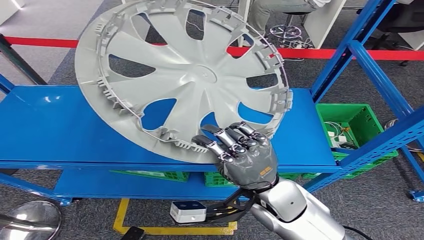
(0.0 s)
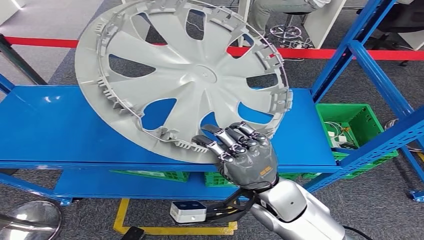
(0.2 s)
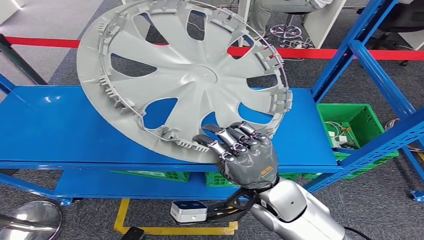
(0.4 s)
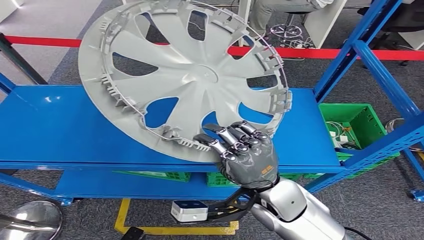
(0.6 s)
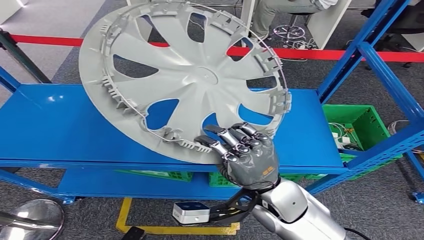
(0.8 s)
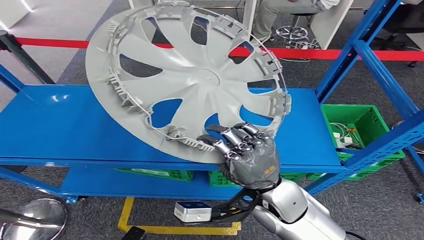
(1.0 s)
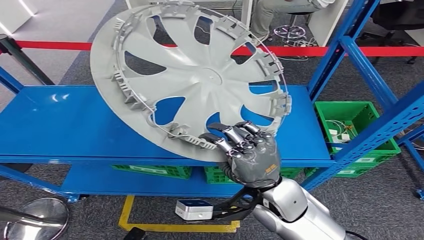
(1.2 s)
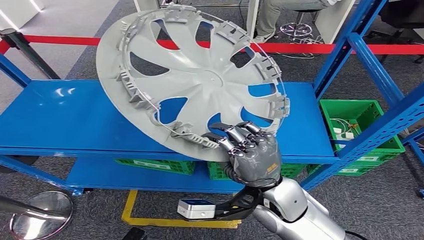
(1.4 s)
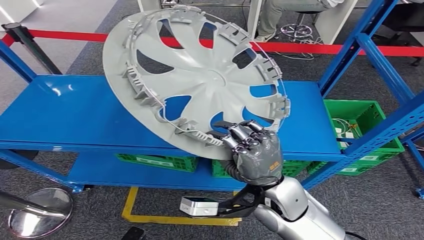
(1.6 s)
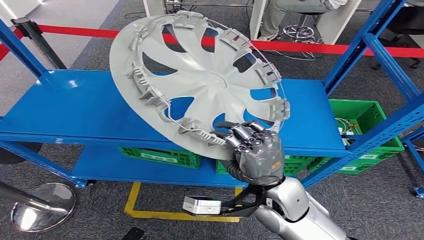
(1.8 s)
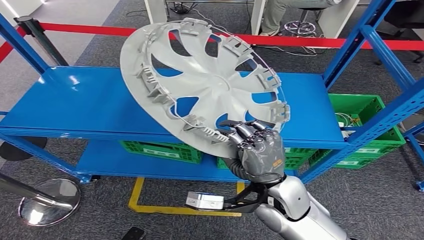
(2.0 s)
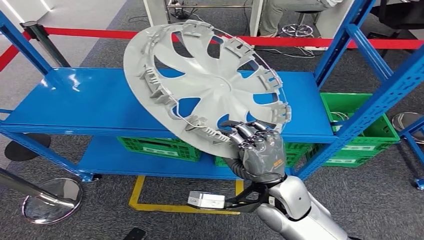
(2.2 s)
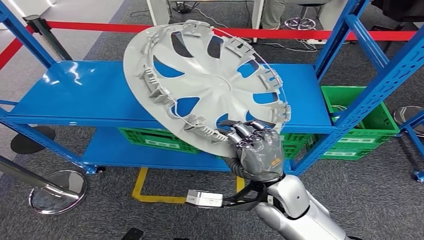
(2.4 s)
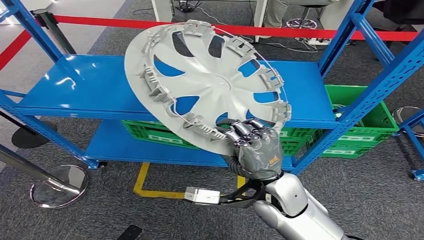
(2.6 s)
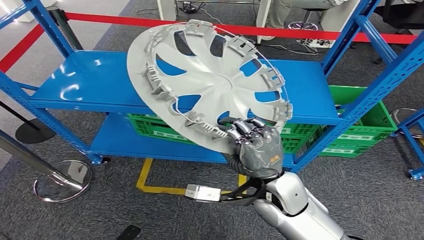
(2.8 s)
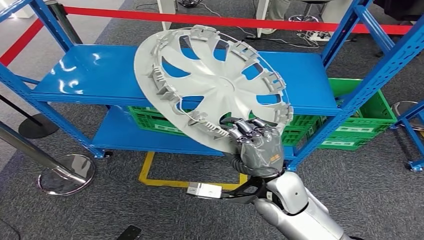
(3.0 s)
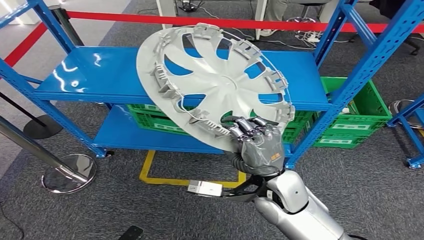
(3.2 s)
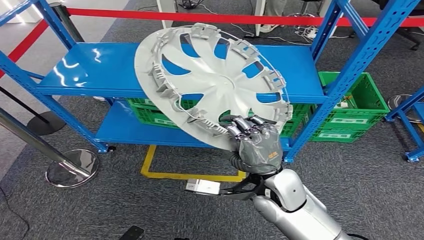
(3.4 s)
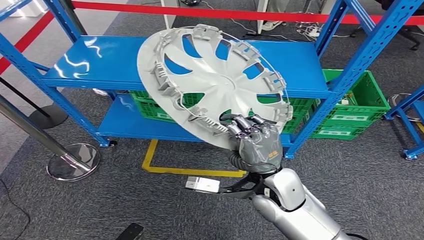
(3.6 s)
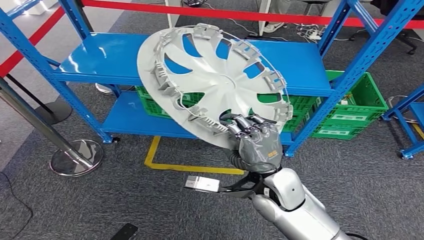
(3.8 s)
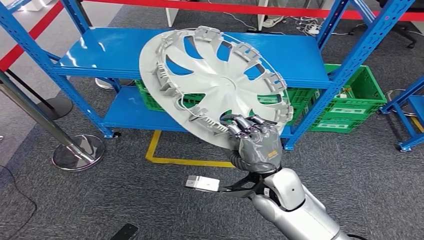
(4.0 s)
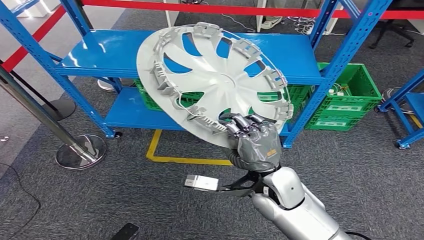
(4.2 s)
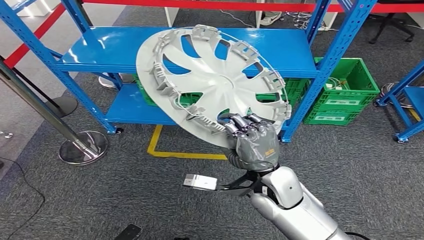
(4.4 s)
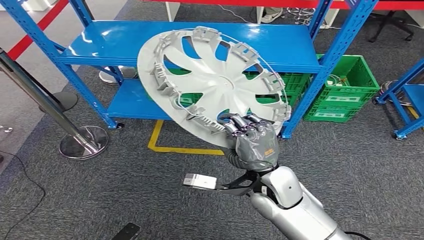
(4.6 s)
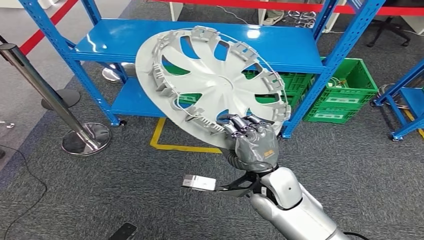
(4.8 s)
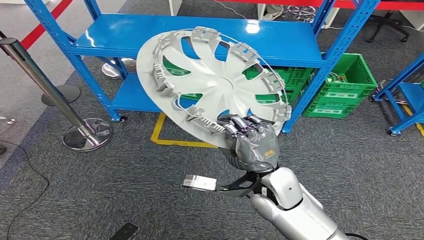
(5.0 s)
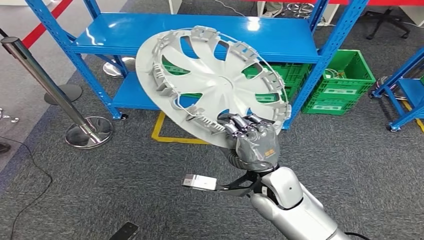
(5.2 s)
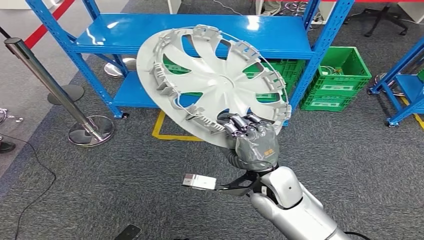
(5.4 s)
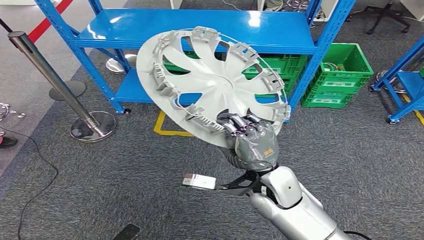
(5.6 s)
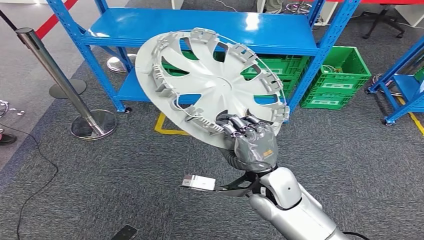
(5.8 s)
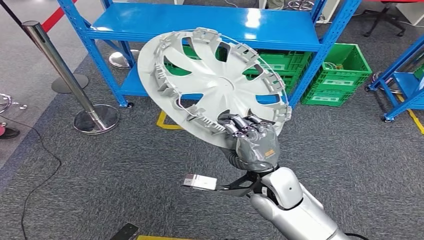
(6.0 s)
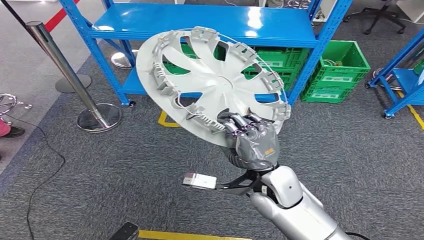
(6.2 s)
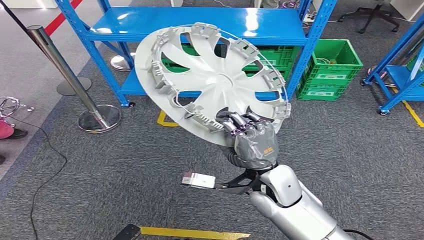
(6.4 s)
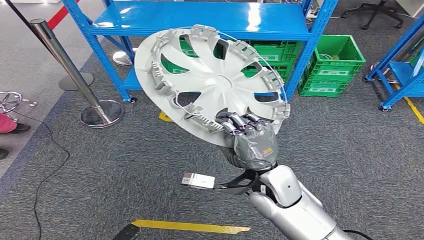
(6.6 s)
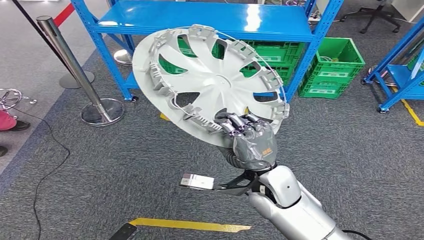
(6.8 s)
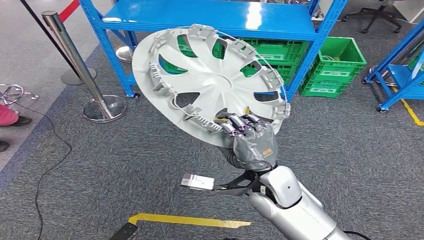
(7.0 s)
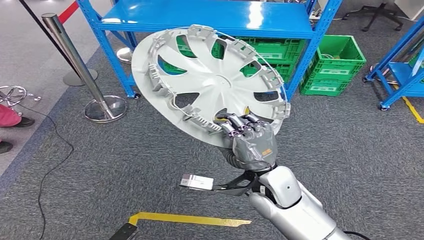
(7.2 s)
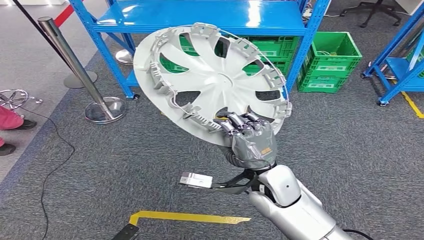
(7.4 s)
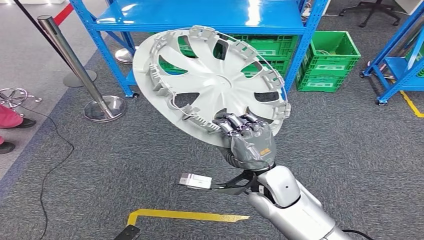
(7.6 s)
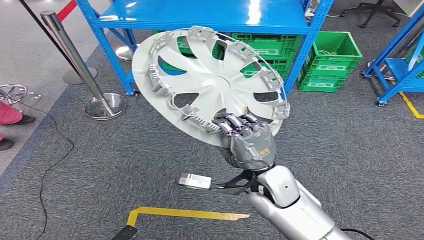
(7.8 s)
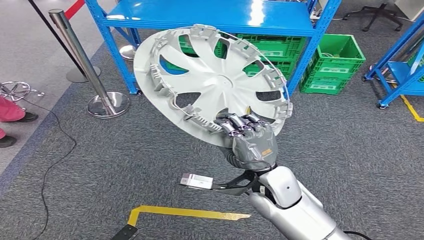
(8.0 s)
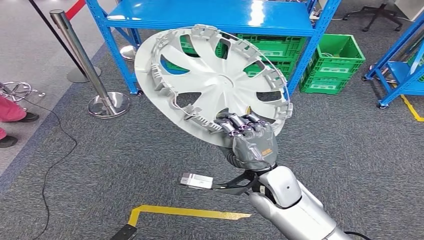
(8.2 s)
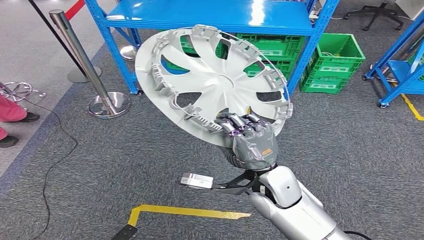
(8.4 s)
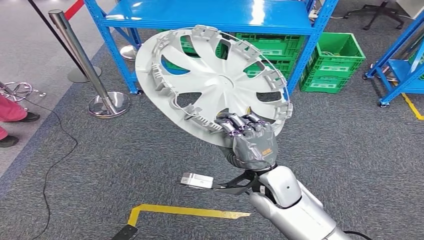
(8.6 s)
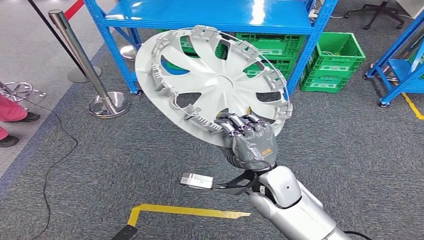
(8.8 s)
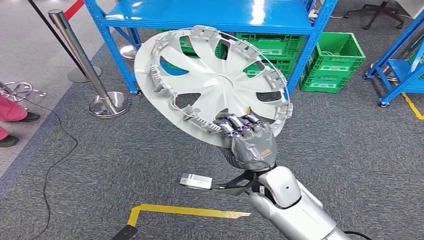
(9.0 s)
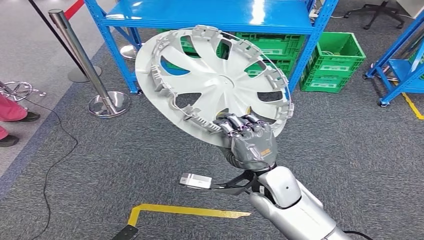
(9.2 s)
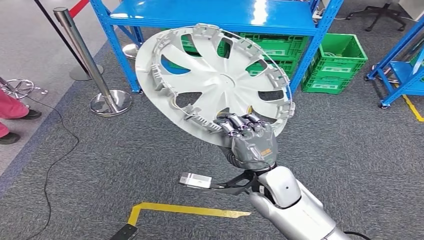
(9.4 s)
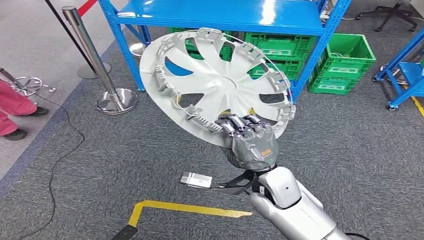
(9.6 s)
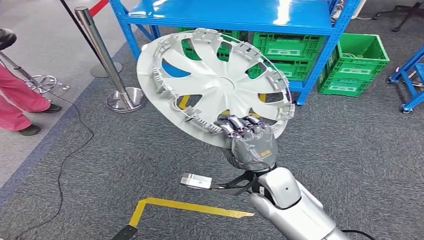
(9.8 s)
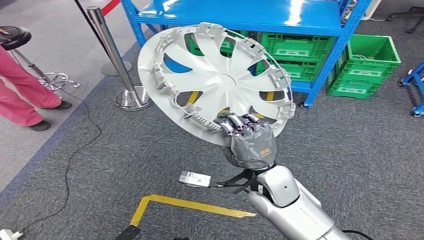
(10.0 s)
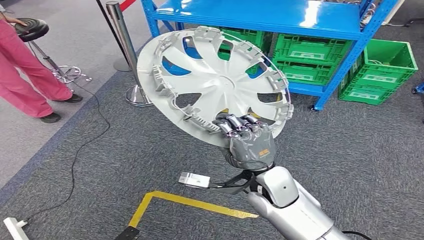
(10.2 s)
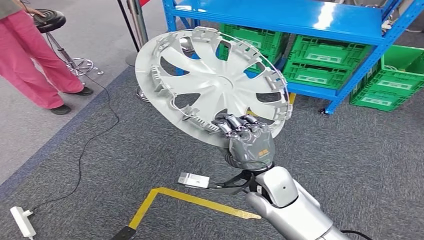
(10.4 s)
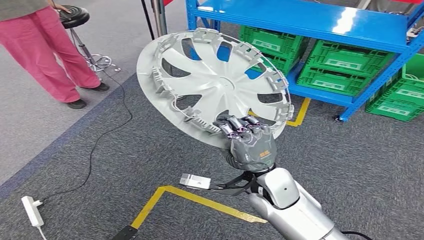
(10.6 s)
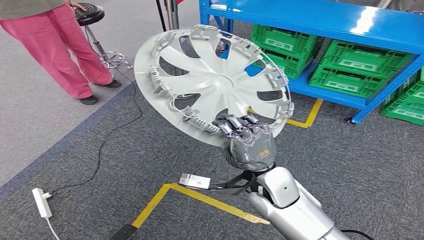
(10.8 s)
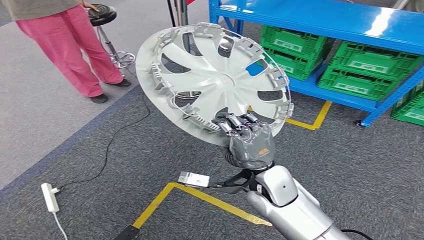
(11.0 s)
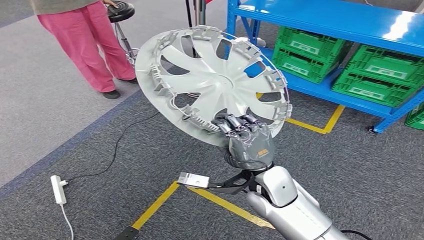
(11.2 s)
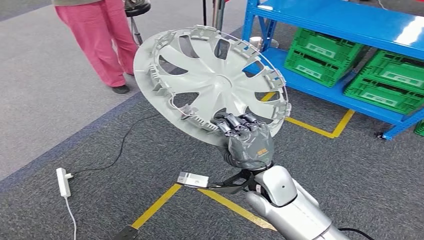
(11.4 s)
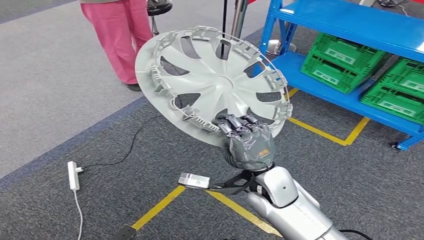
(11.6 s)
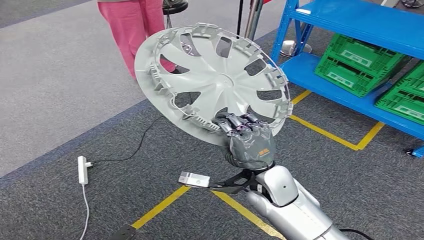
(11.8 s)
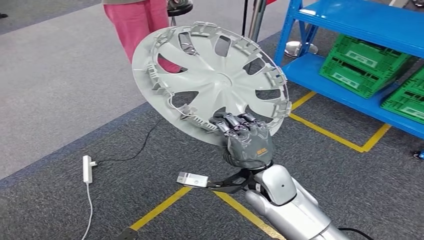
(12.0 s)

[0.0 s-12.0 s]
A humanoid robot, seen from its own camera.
7.6 to 9.0 s: The two hands keep their place.

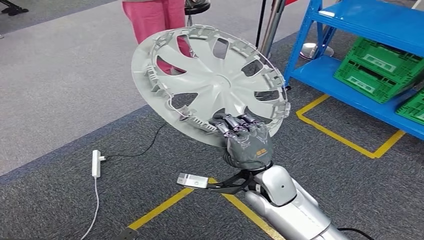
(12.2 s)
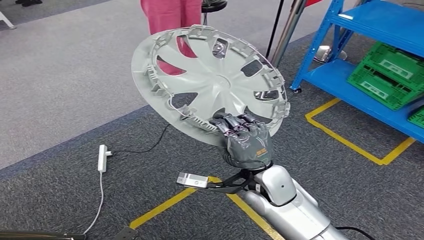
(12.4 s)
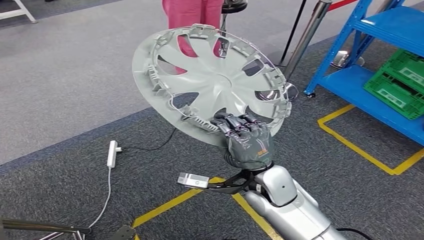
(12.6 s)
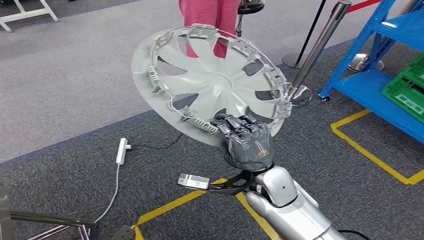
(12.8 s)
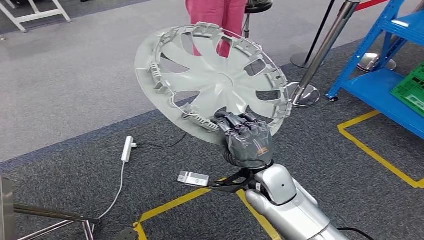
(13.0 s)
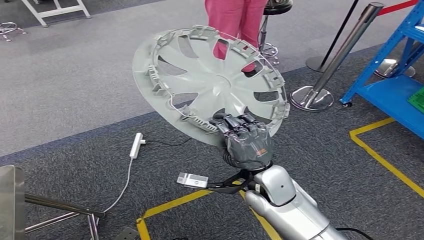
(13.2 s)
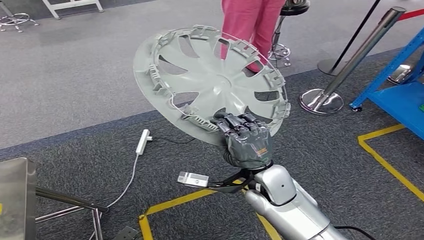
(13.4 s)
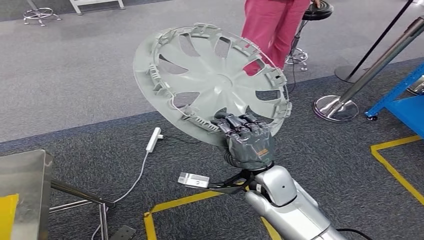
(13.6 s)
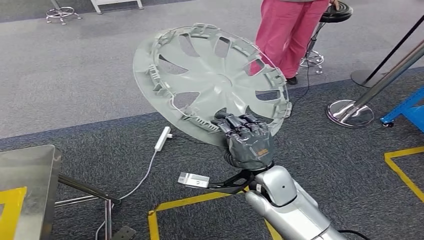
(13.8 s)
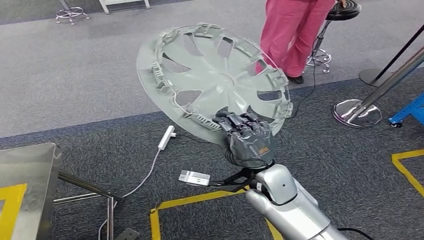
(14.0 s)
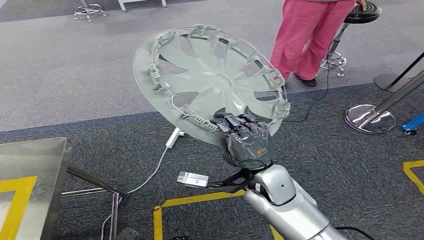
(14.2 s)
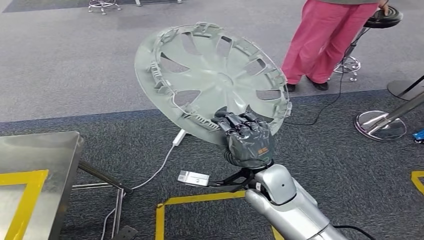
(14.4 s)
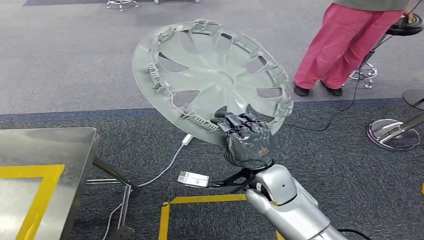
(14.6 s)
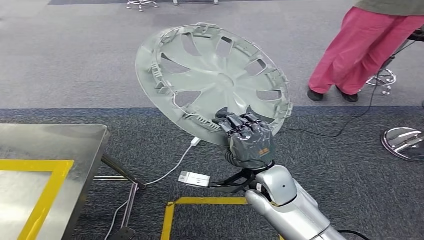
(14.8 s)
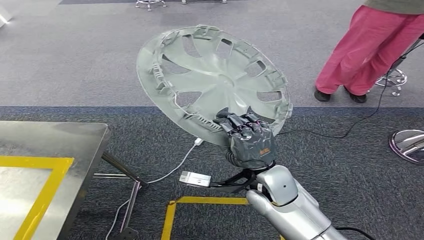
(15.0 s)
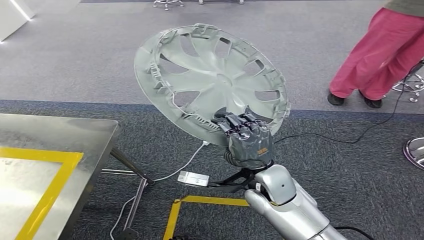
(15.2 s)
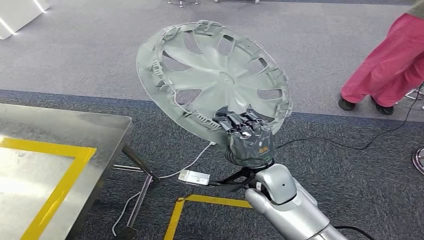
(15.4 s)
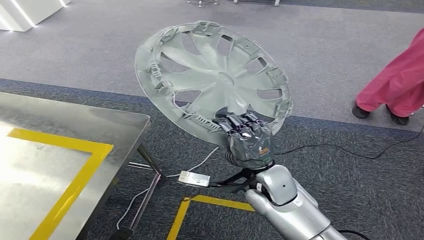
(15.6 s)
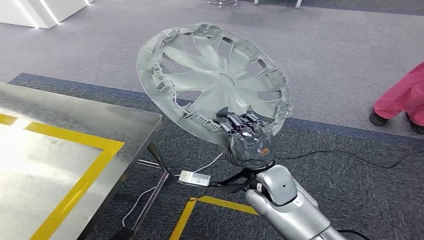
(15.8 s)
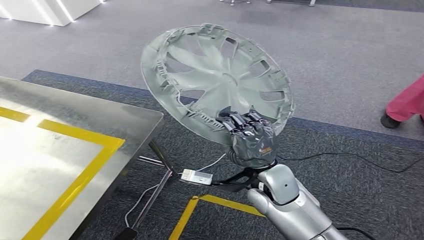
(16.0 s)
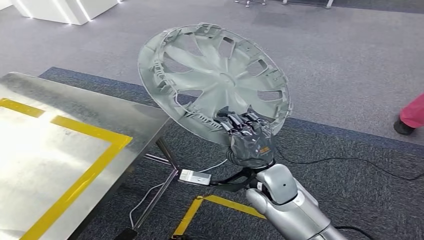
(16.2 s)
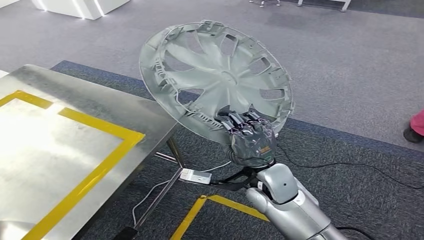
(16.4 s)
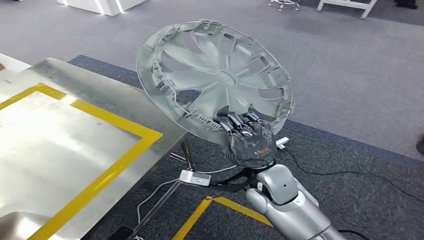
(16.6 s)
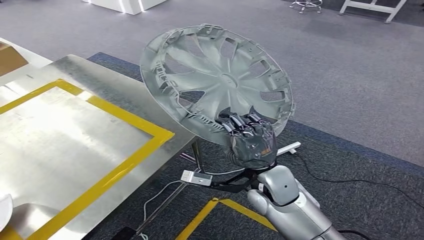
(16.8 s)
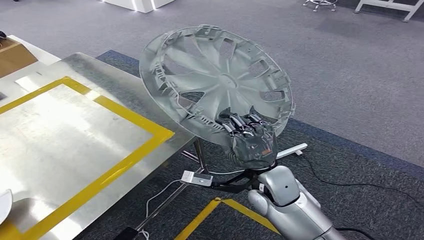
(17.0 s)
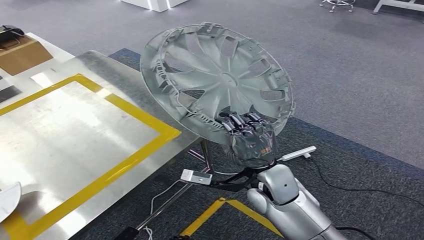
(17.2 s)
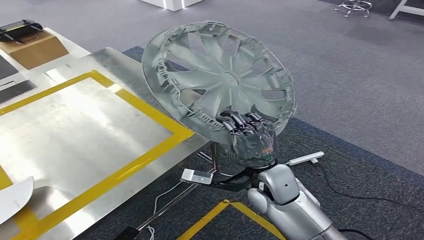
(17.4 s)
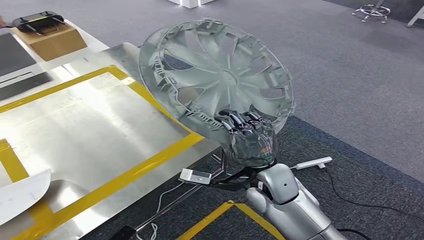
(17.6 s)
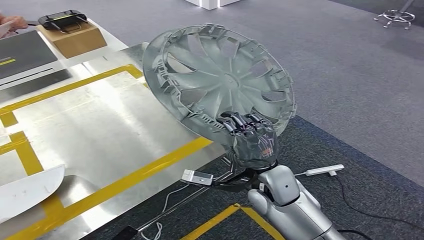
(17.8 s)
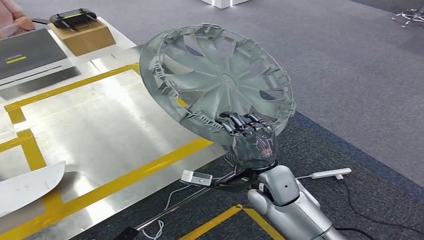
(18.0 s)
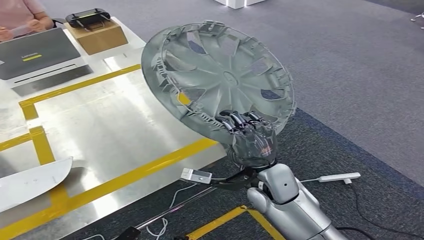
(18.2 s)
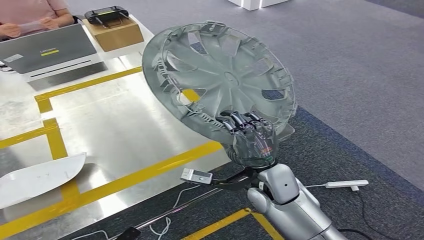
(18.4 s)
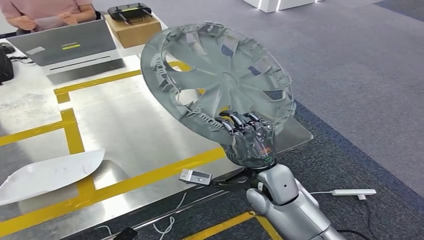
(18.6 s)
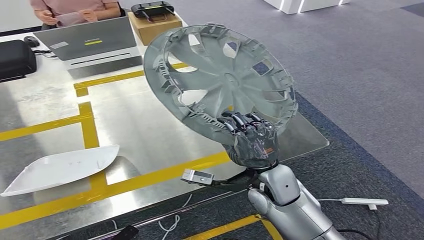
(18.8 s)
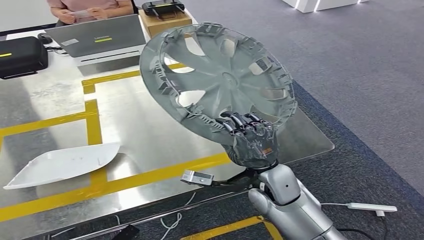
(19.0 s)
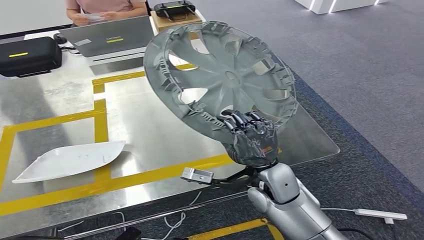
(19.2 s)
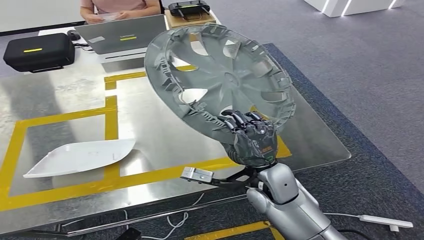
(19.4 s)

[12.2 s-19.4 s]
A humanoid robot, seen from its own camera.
Step, 12.2 to 18.2 s: Move the small parts to the workbench.
